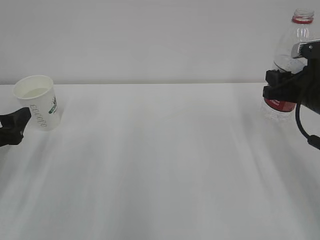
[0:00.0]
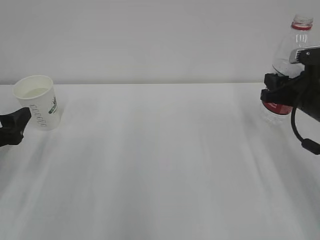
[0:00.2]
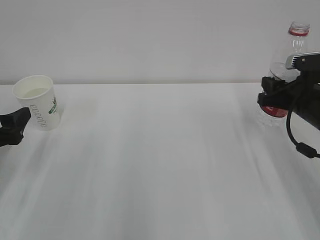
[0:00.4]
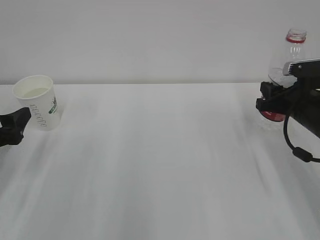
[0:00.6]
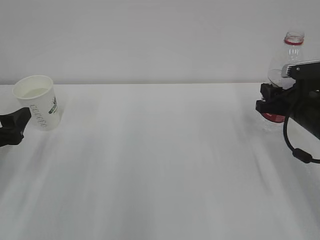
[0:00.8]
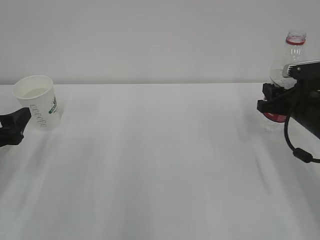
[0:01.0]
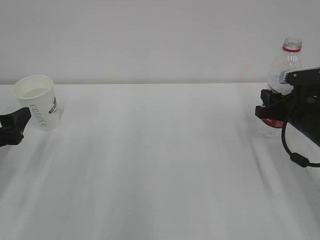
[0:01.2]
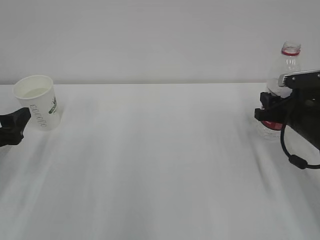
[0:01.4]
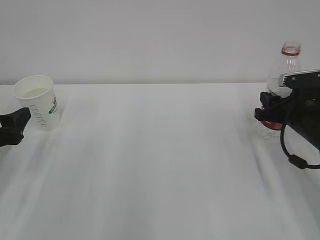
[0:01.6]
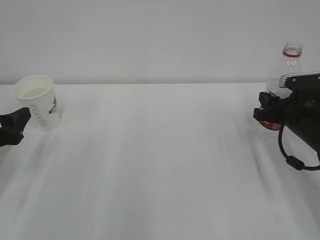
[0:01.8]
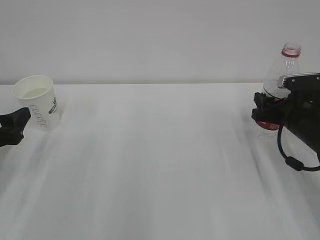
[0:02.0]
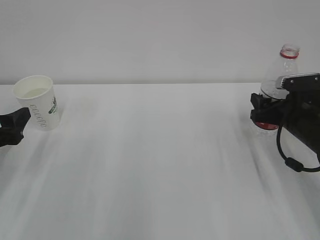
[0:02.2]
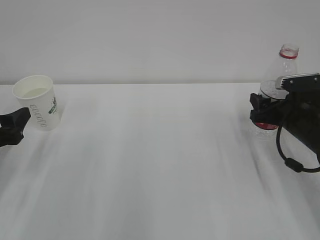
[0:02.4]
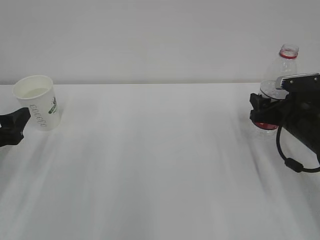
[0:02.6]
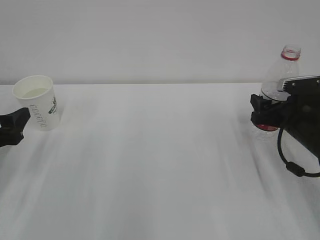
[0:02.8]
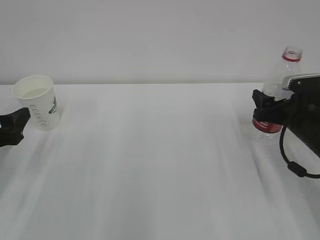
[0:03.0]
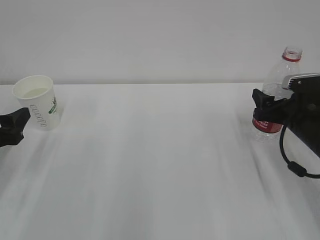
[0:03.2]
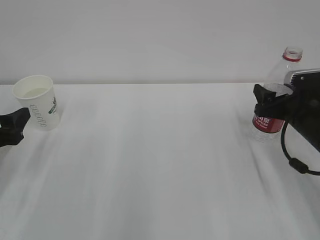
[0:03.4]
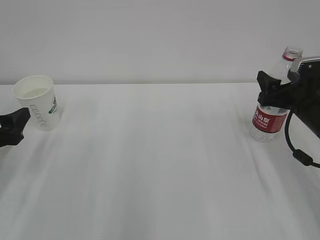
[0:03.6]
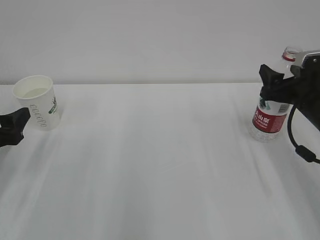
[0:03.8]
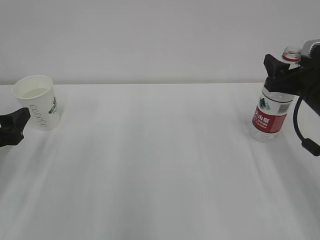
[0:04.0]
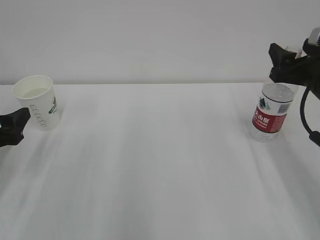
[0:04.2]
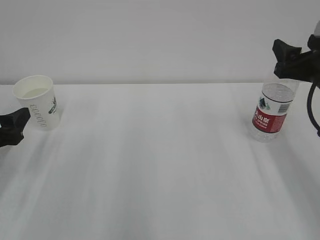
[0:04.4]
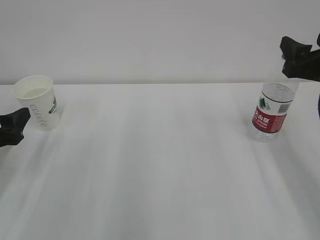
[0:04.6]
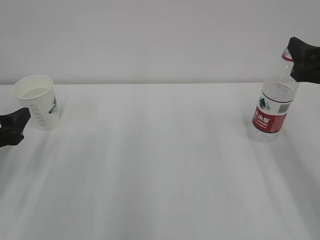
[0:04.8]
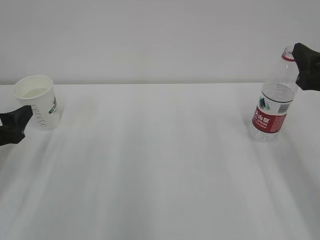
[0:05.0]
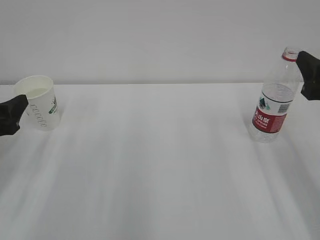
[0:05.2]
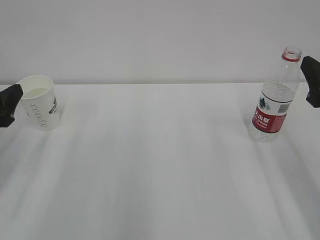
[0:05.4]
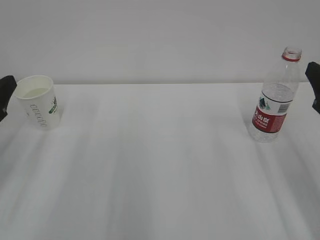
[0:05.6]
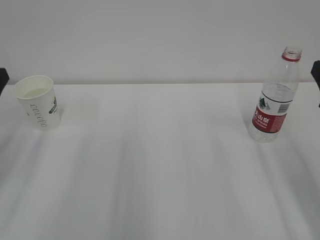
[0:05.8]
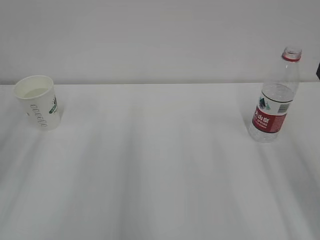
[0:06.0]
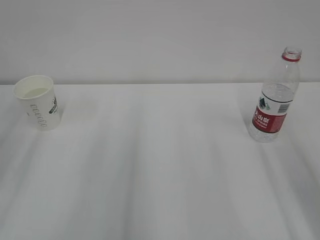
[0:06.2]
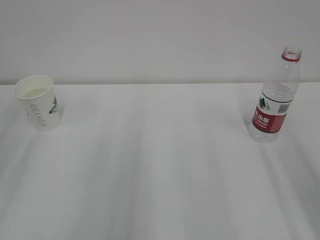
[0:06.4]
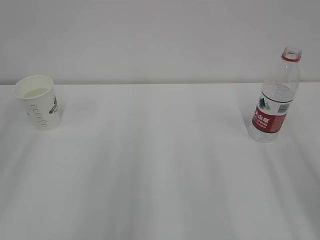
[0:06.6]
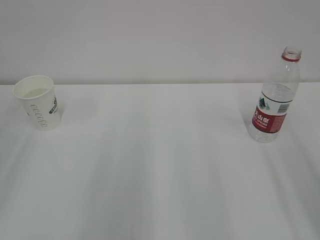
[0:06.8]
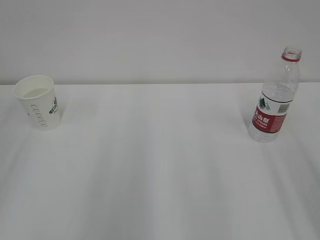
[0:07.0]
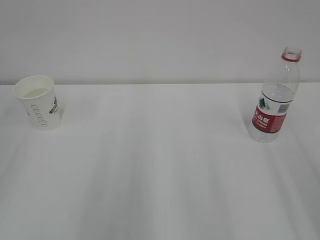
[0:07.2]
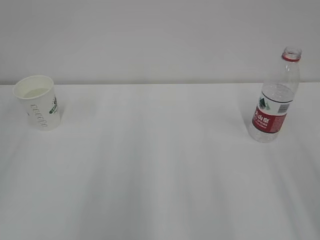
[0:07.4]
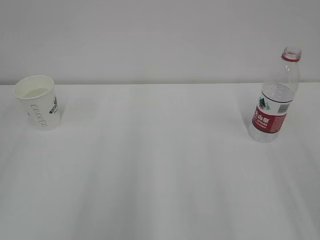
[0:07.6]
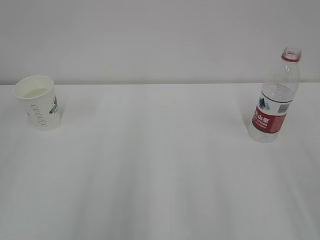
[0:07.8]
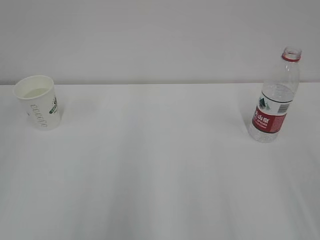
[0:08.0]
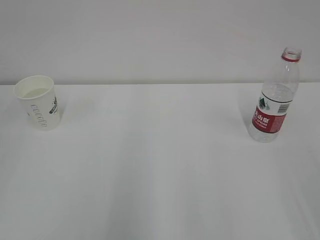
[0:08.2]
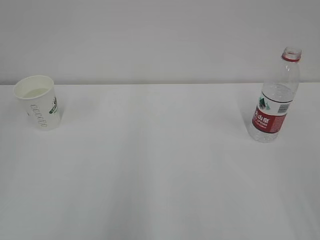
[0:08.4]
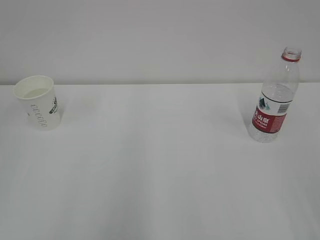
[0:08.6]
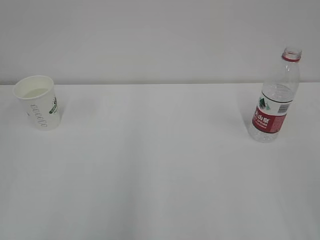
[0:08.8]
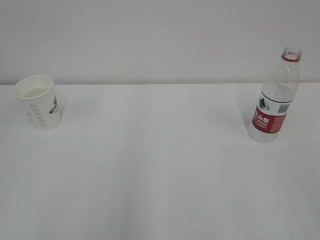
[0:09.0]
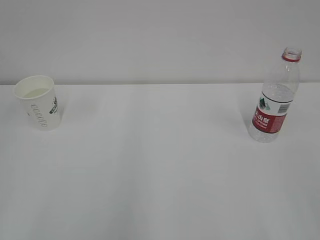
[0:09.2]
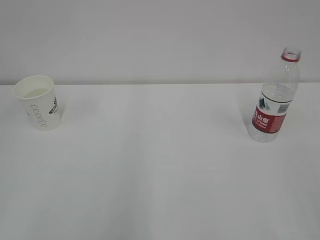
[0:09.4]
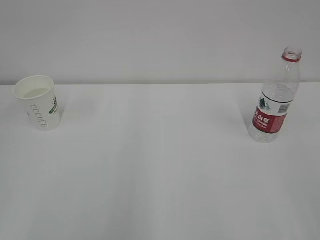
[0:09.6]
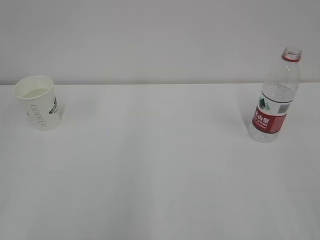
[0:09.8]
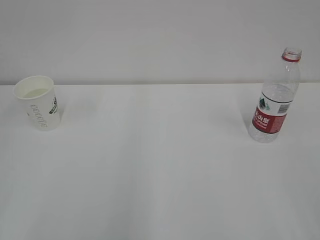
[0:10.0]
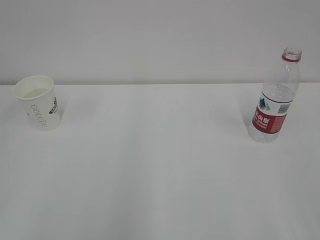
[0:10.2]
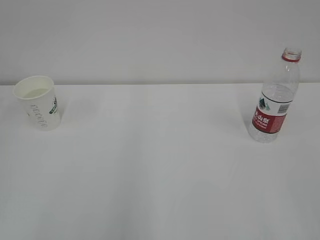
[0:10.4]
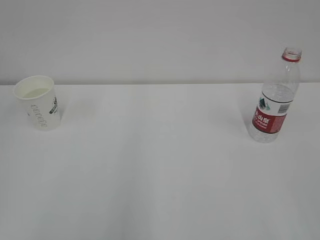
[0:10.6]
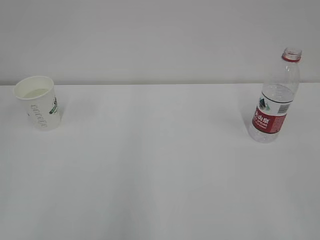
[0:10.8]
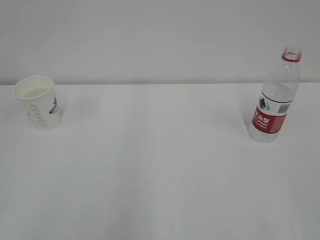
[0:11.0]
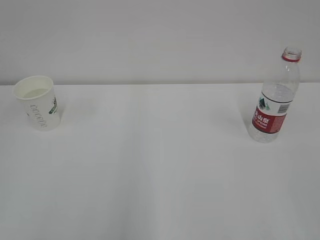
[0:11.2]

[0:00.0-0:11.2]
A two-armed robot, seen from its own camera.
0:00.0 to 0:01.6: The right gripper travels downward by some 5 cm.
0:01.6 to 0:03.2: The right gripper opens up.
0:03.2 to 0:04.8: The right gripper heads upward and backward, covering about 15 cm.
0:04.8 to 0:06.4: The right gripper is displaced backward by about 10 cm. Meanwhile the left gripper travels upward and backward by some 15 cm.
